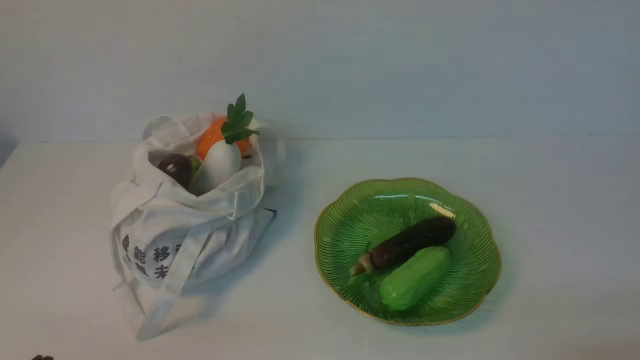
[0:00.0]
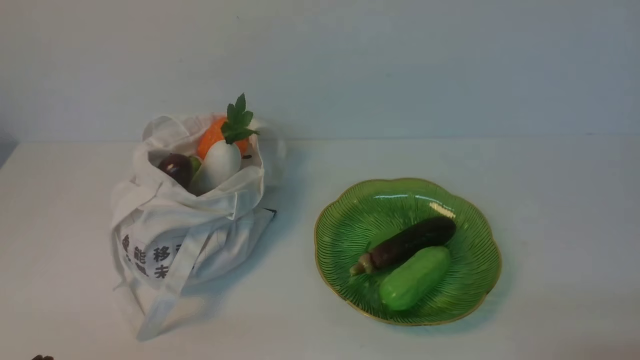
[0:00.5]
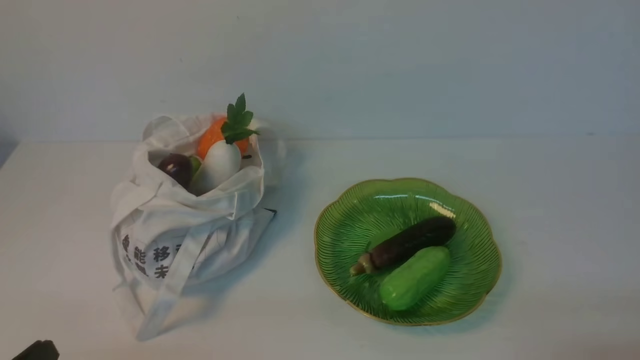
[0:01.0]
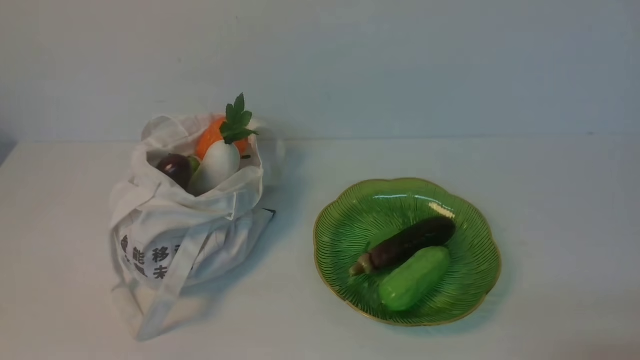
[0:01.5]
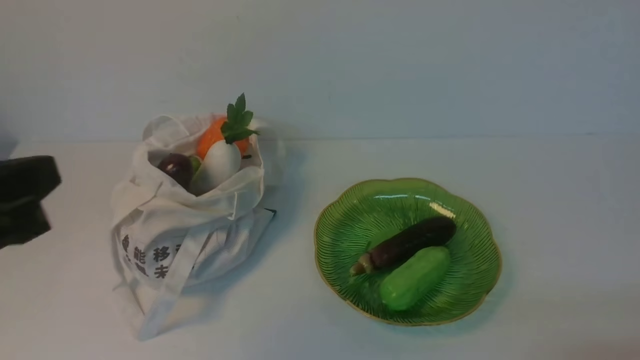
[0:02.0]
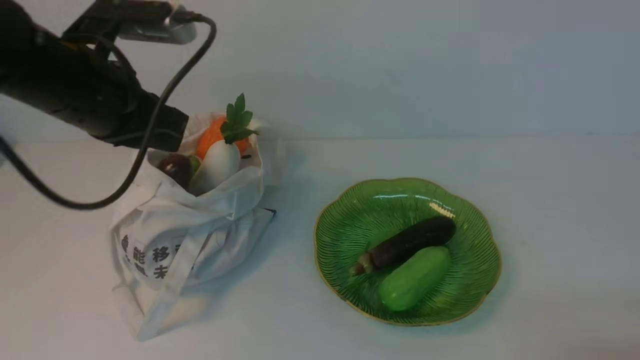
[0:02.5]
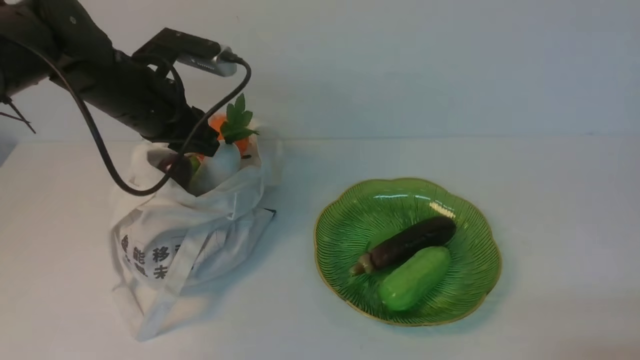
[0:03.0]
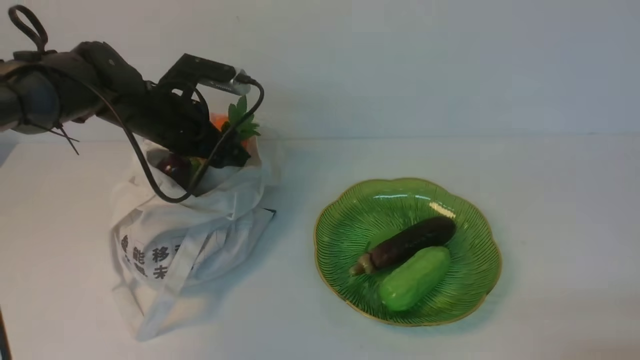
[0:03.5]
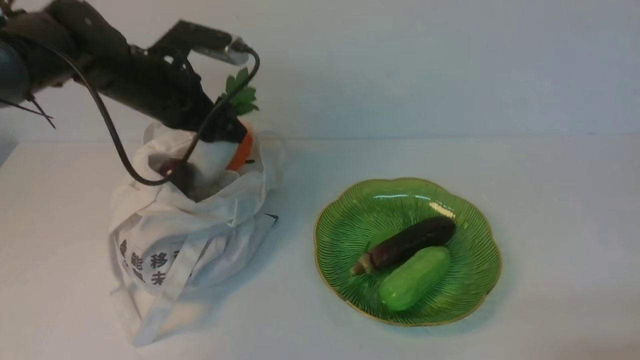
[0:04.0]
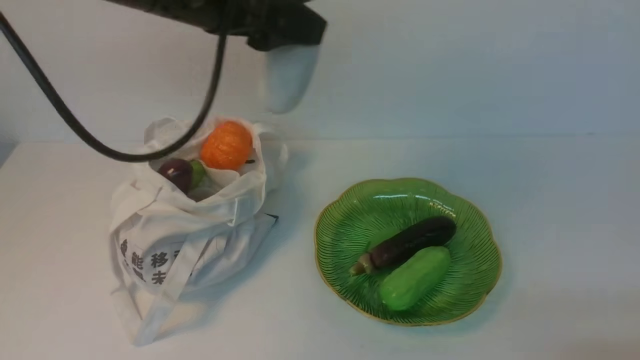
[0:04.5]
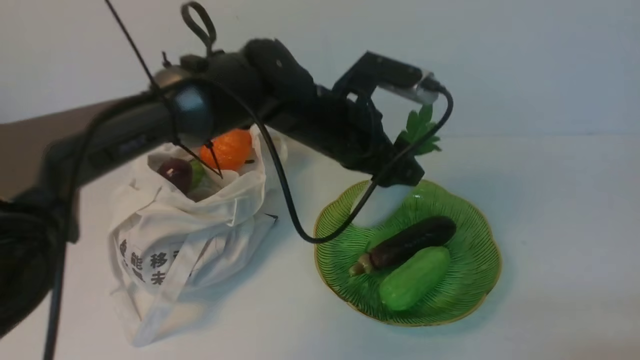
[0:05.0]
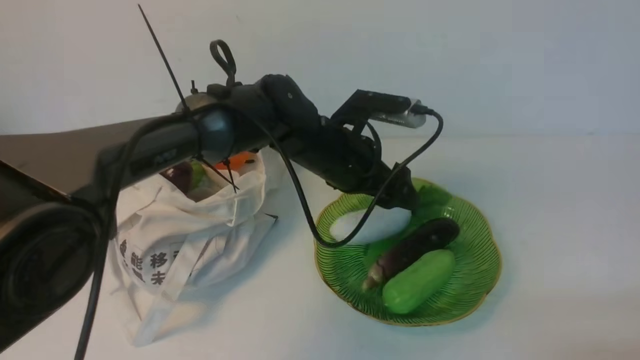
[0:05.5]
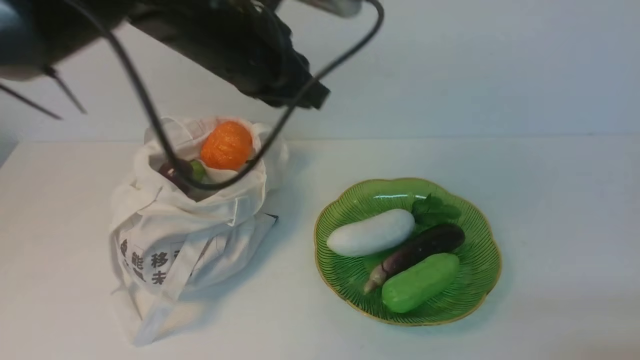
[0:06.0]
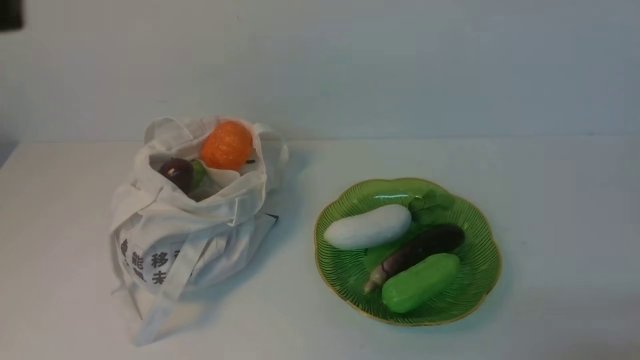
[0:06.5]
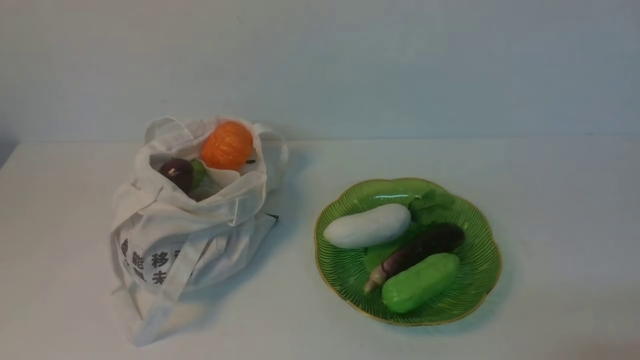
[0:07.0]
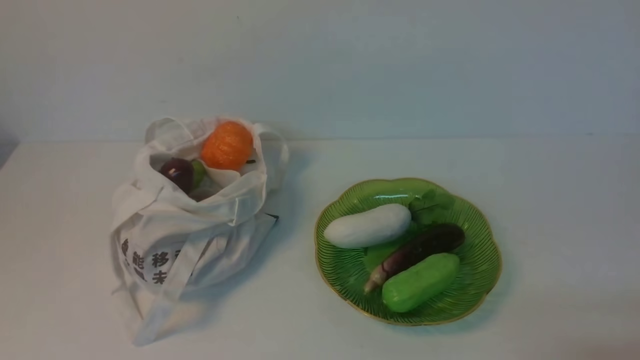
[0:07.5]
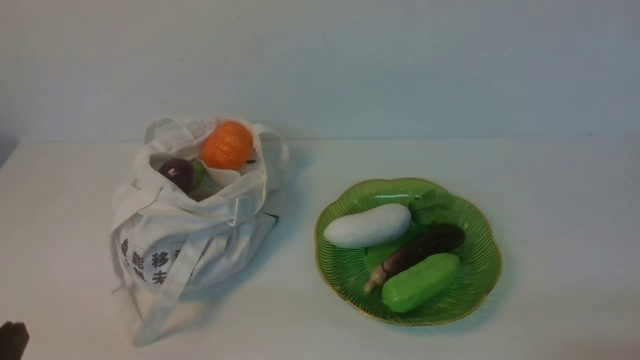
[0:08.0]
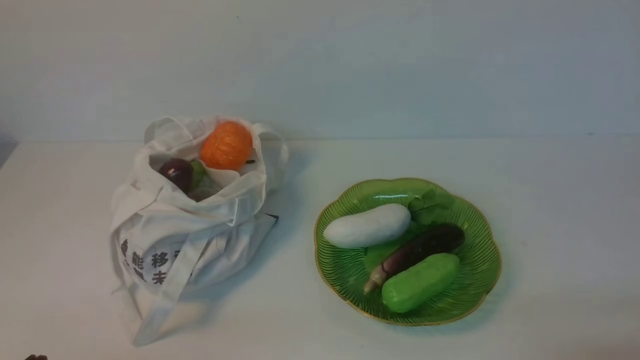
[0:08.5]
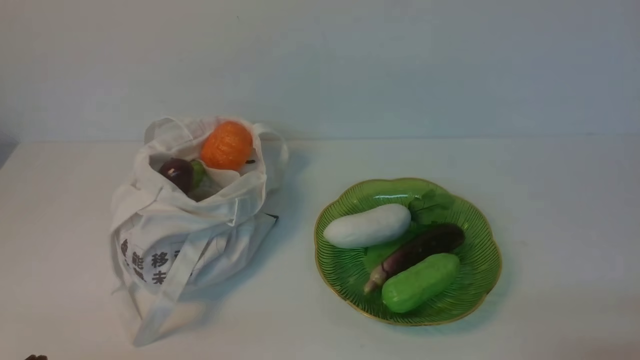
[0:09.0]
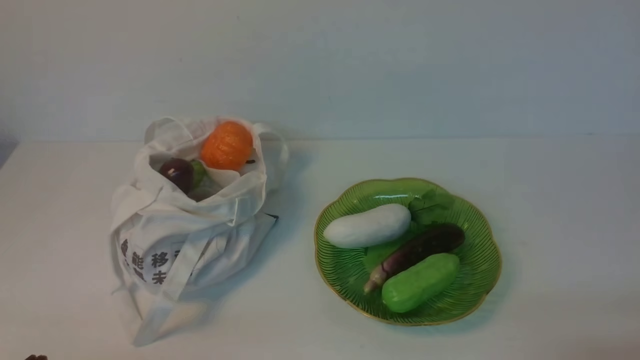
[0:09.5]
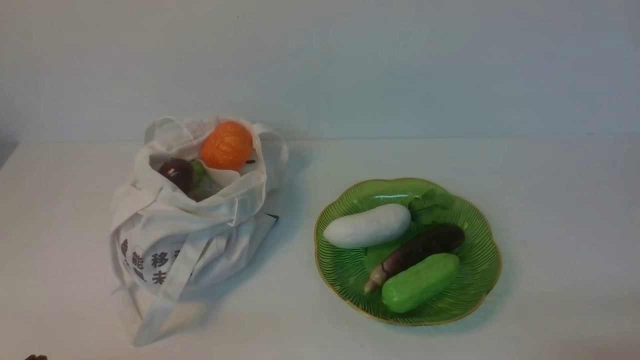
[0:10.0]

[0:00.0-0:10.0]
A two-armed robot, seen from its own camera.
Task of the whole recording: take vegetables from cloth bag on white table place on plate.
Step, 0:00.0 to 0:03.5: Grasp the radish with left gripper.
Step, 0:04.0 to 0:05.5: Place the radish on the plate with left gripper.
0:02.0 to 0:04.0: The left gripper heads forward, covering some 30 cm, and opens.
0:04.0 to 0:06.0: The left gripper is displaced to the right, upward and backward by approximately 15 cm, and closes.
0:06.0 to 0:08.0: The left gripper travels backward, to the left and downward by approximately 40 cm.

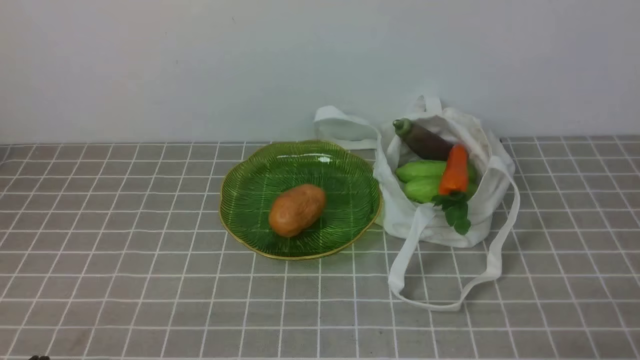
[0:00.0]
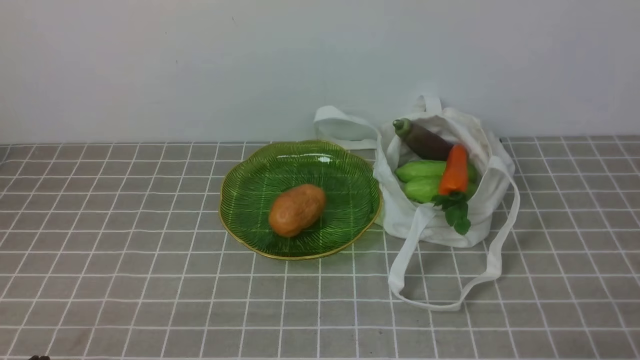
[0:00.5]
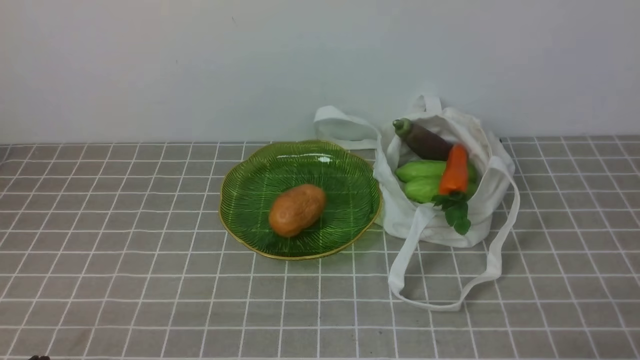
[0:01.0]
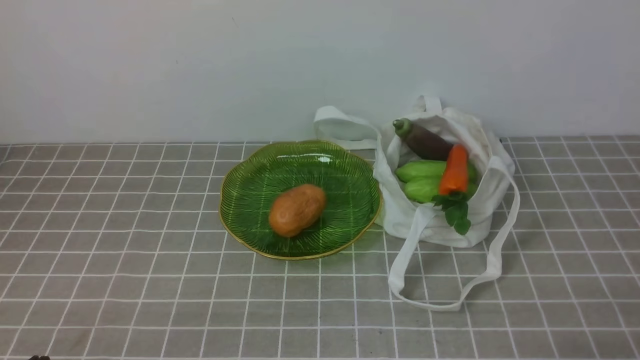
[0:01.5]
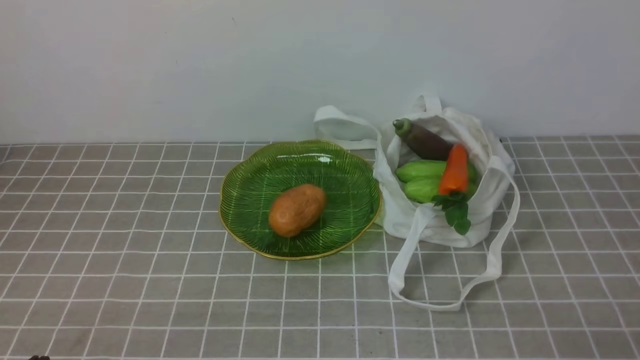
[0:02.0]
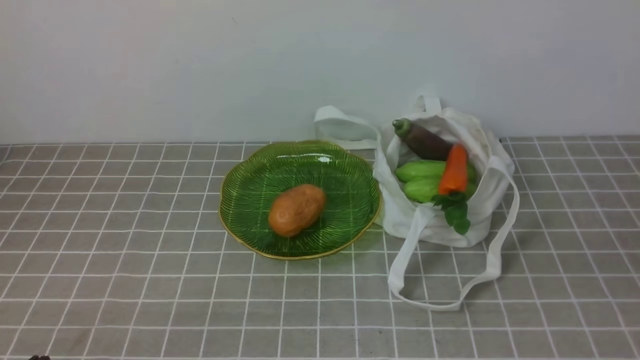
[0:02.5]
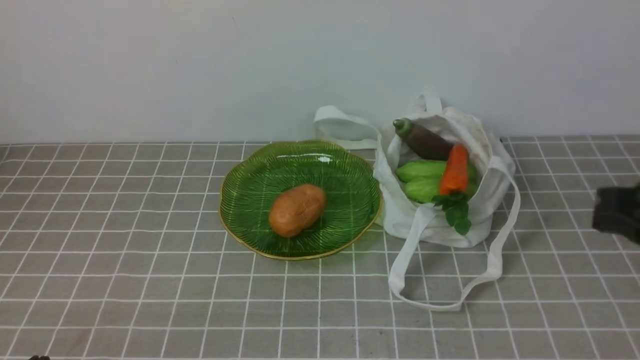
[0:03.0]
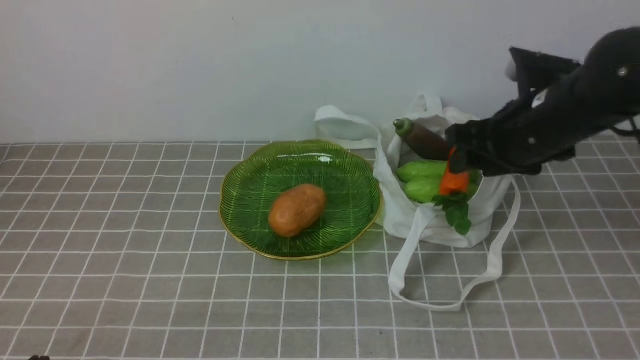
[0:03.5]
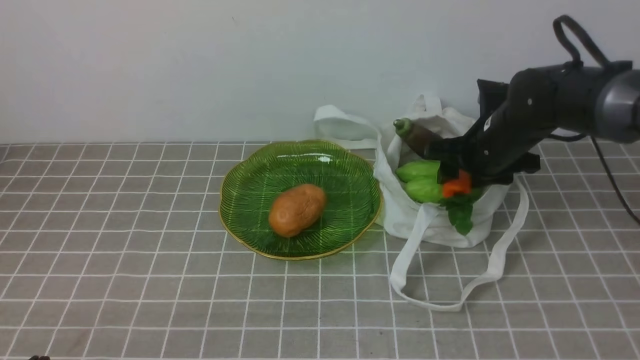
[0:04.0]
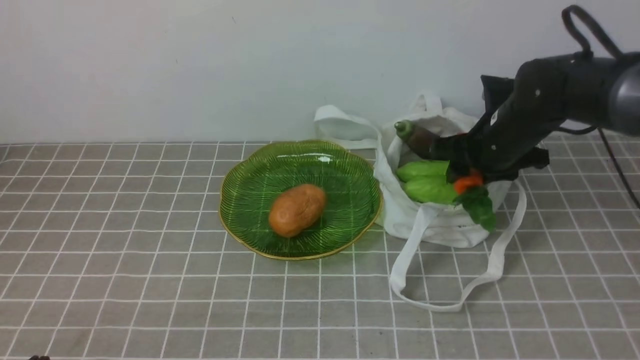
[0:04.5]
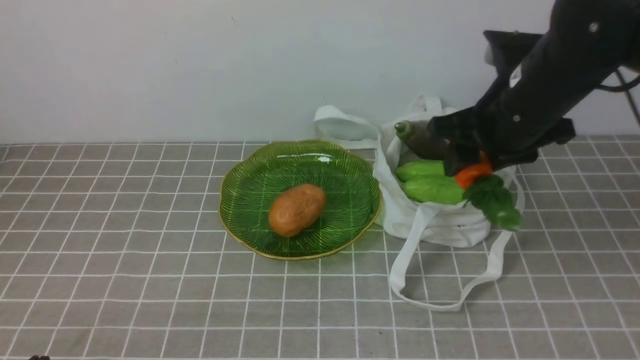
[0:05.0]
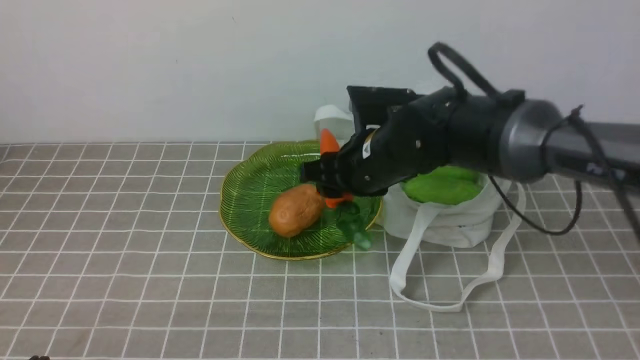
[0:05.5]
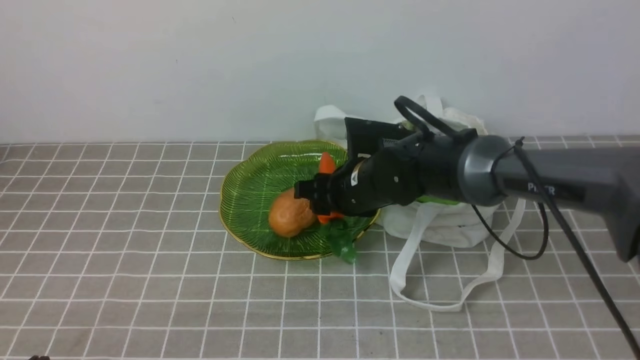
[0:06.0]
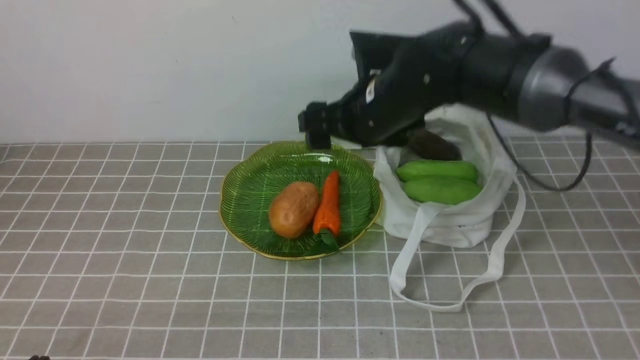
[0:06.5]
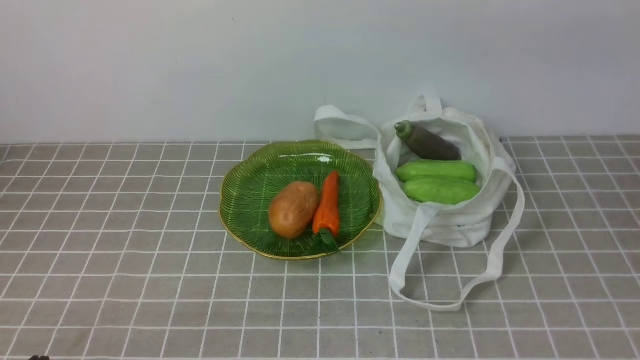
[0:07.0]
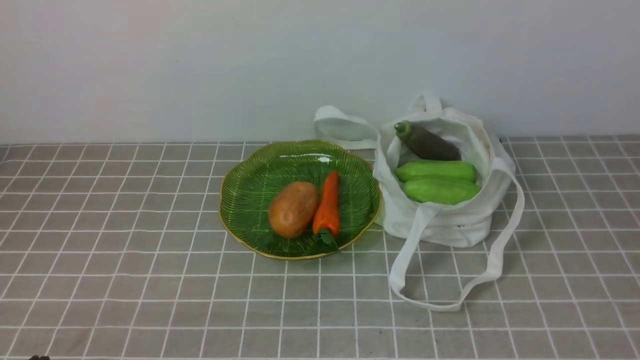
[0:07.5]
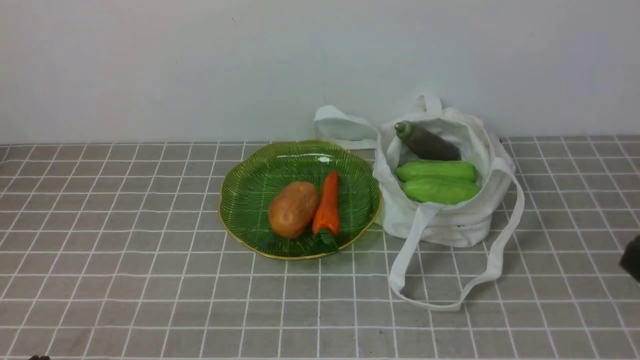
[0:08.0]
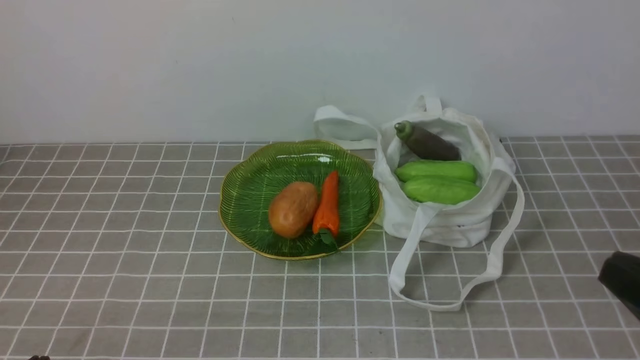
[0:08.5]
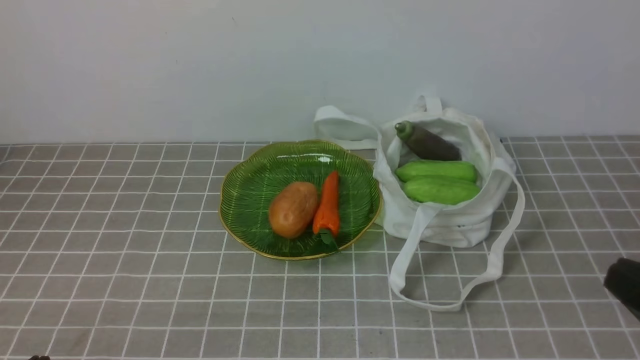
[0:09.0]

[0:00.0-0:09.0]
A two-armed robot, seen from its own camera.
Task of the whole recording: take vegetables from bag on grey coffee tablecloth place on plate.
Step, 0:00.0 to 0:04.0: Grasp the carrot with right gripper.
Step, 0:04.5 to 0:06.5: Place the carrot on the plate with right gripper.
0:02.0 to 0:04.5: The right gripper moves forward, approximately 35 cm, and opens up.
0:04.5 to 0:07.0: The right gripper swings up and down, about 30 cm each way, with 2 reversals, and opens, then closes once more.
0:07.0 to 0:09.0: The right gripper shifts about 35 cm backward, downward and to the right, and closes.

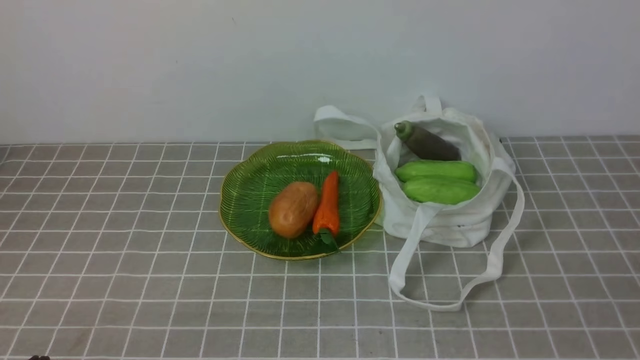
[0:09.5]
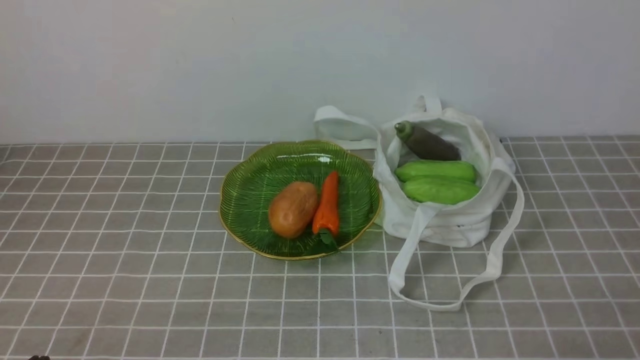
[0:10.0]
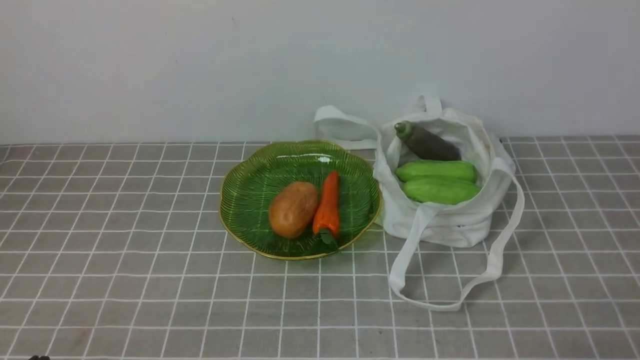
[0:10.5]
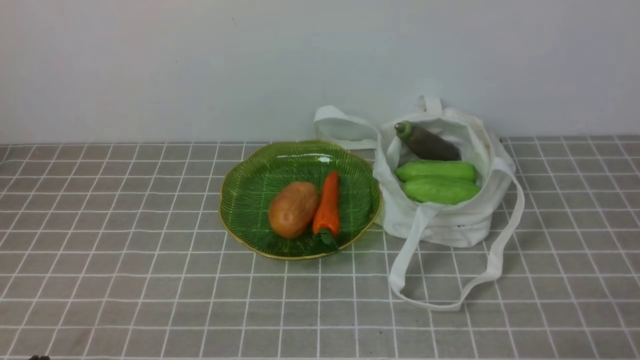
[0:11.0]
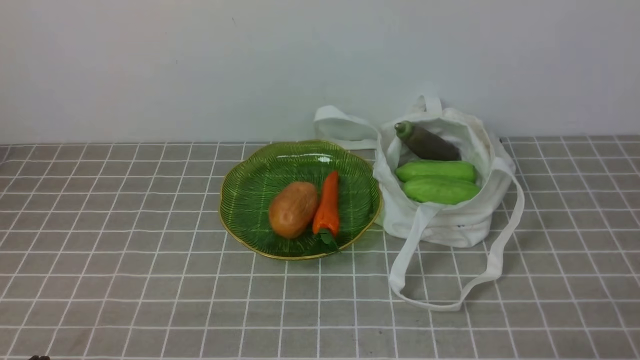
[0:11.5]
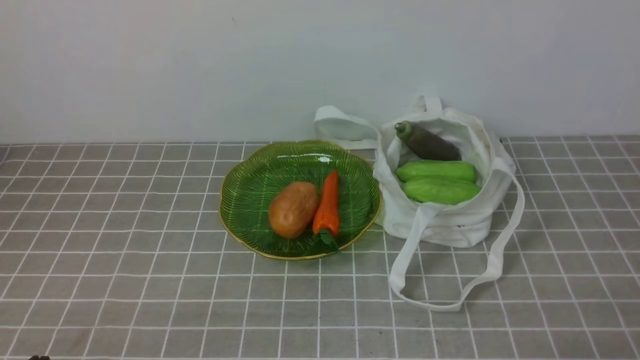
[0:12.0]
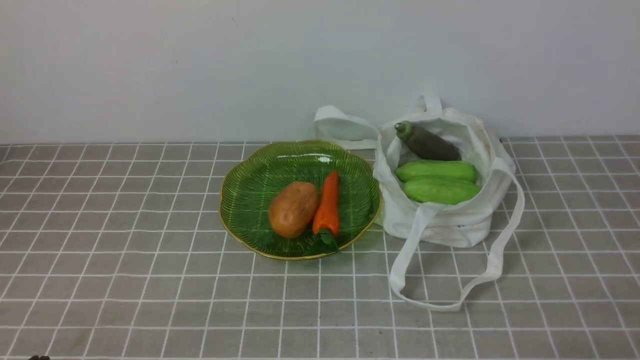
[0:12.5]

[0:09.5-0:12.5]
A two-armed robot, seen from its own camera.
Task of the whole recording: take vegetables from bag on grey coffee tablecloth place on plate.
0:11.0 to 0:12.5: Both grippers stay put.
